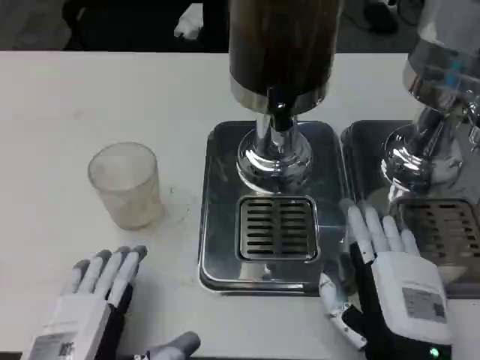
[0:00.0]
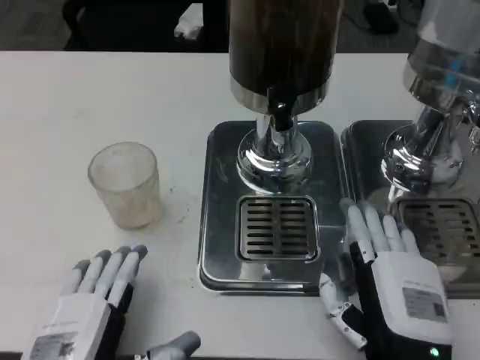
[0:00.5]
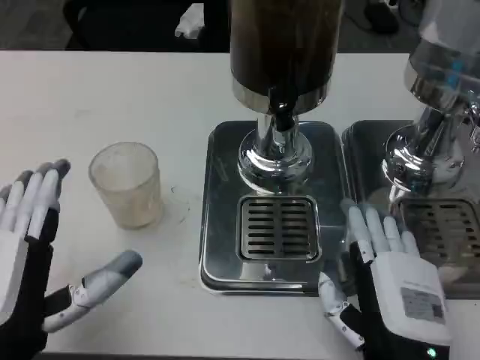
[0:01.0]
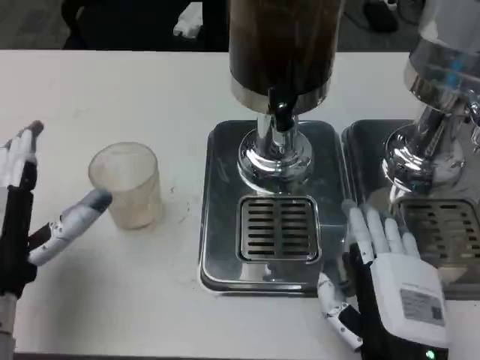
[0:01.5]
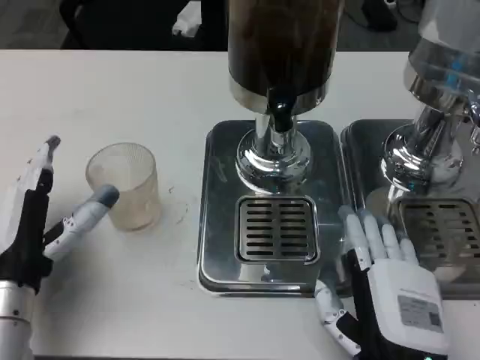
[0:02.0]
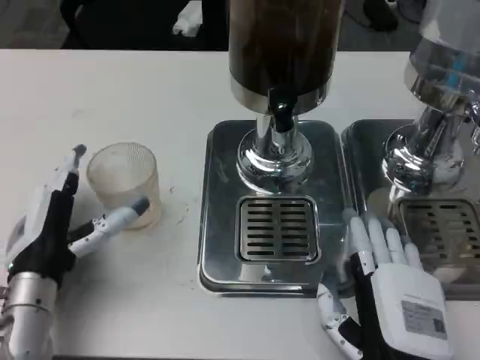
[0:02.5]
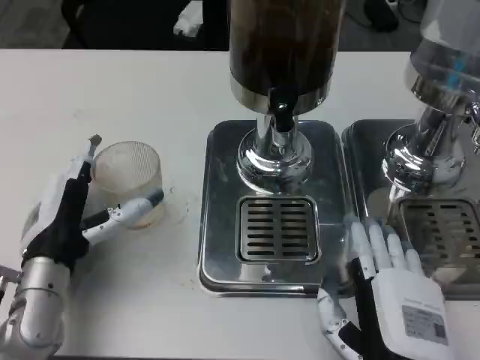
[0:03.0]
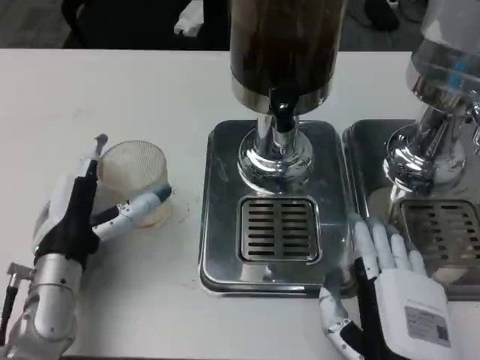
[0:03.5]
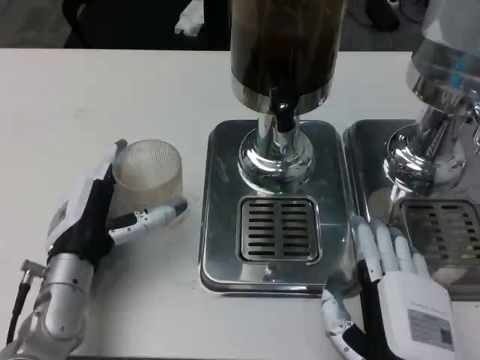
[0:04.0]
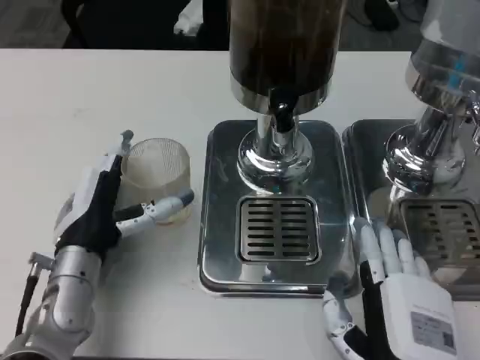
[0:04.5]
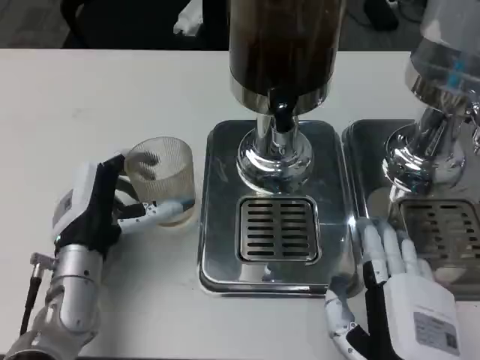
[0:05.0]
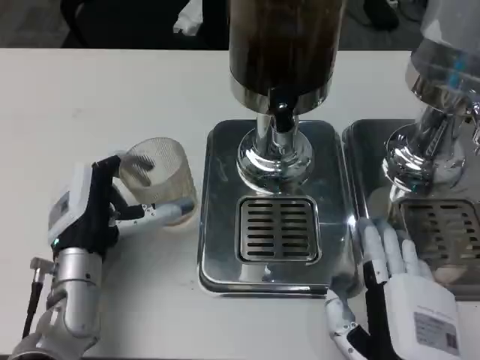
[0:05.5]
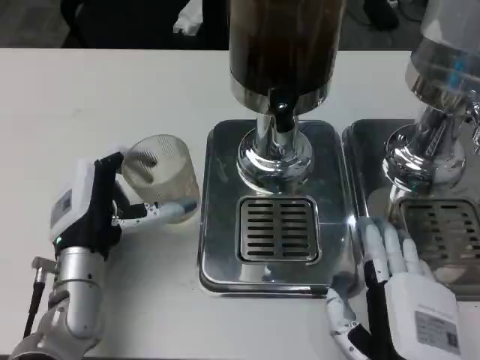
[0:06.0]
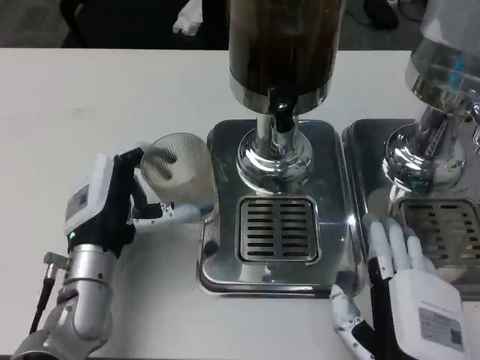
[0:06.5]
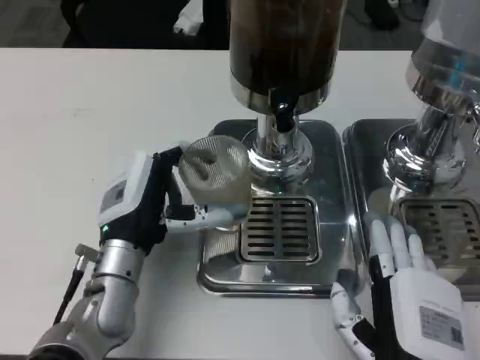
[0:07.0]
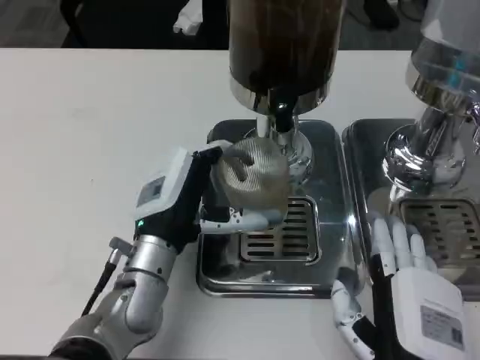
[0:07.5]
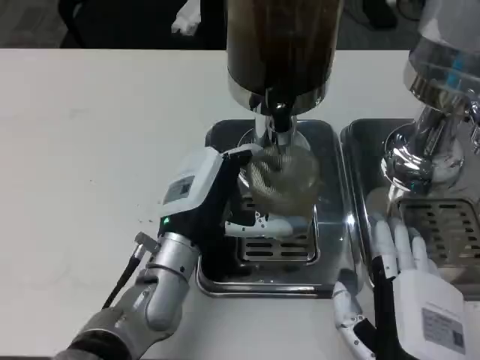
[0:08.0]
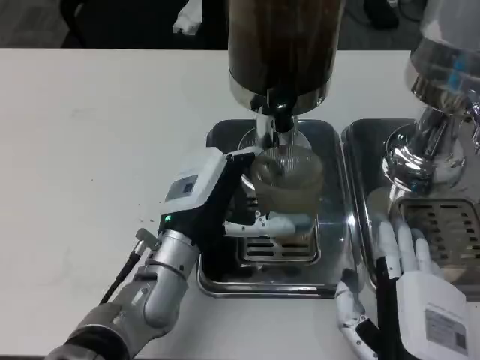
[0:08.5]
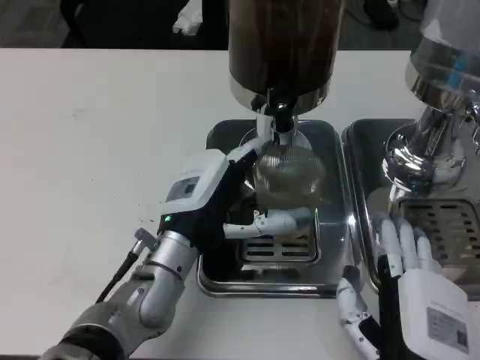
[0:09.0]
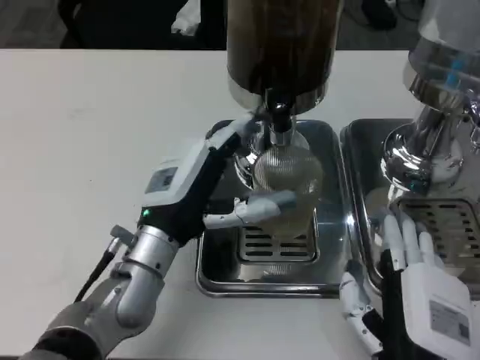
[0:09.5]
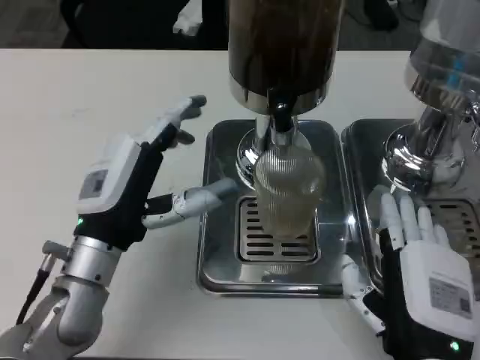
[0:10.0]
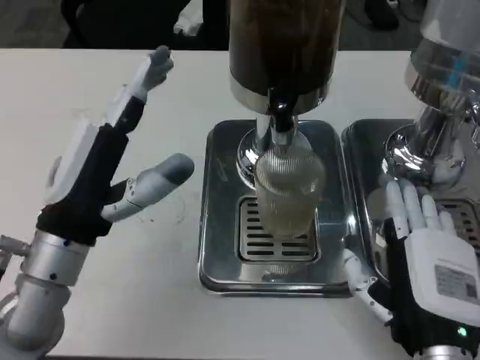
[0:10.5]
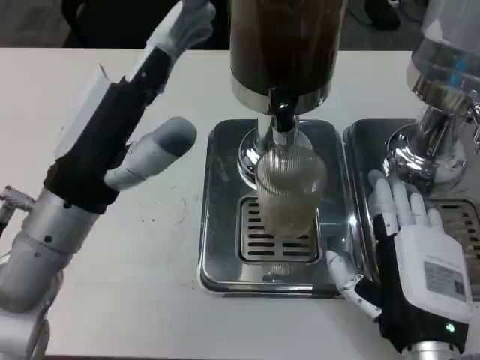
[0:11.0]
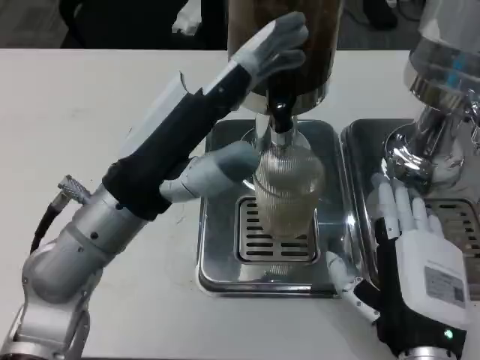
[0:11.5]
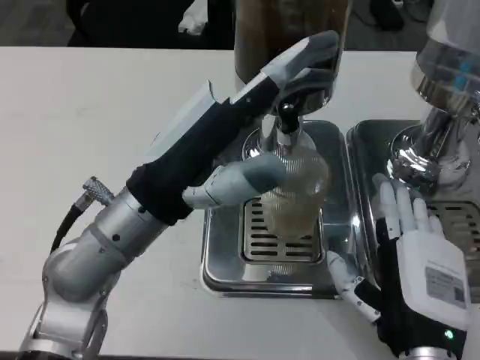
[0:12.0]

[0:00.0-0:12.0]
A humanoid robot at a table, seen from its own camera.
Task of the whole recording: Grasp the cup under the faucet to collect the drink, then remove the cup.
0.0 to 2.0 s: The left hand goes some 15 cm forward and to the left.
2.0 to 4.0 s: The left hand shifts by about 5 cm.
4.0 to 6.0 s: The hands stay close to where they were, moving slightly.
6.0 to 8.0 s: The left hand travels to the right by some 10 cm.
8.0 to 10.0 s: The left hand moves to the left, some 10 cm.
10.0 to 12.0 s: The left hand heads upward, covering about 10 cm.

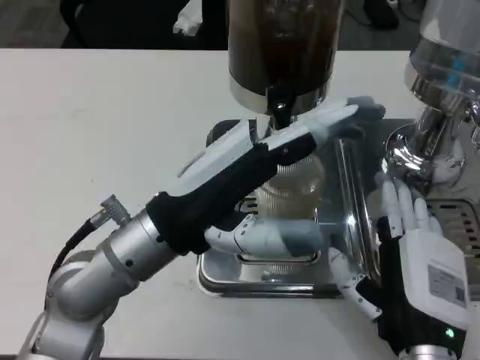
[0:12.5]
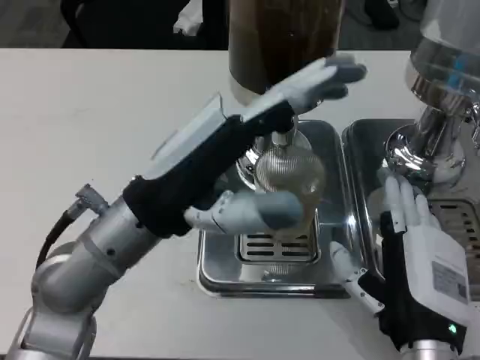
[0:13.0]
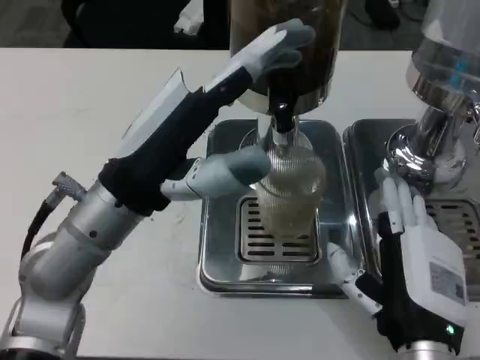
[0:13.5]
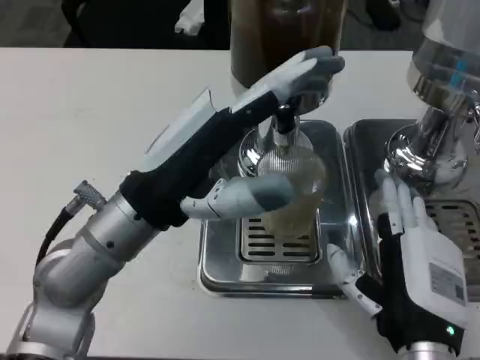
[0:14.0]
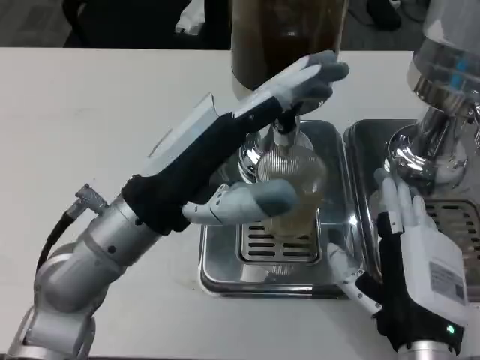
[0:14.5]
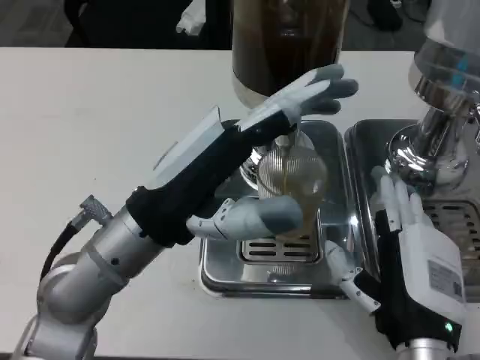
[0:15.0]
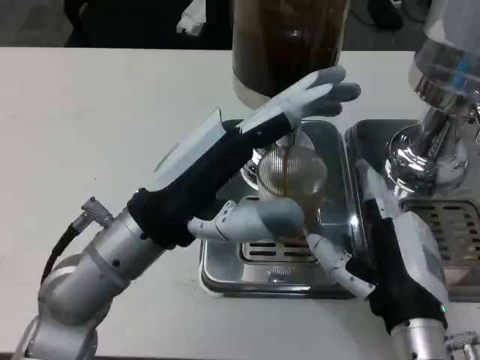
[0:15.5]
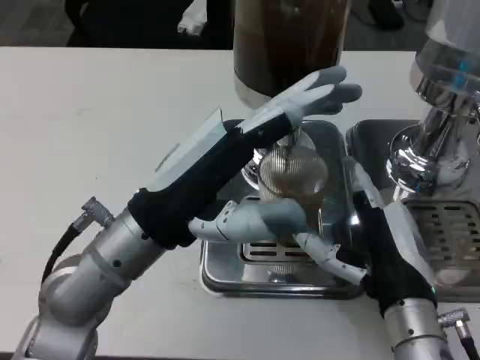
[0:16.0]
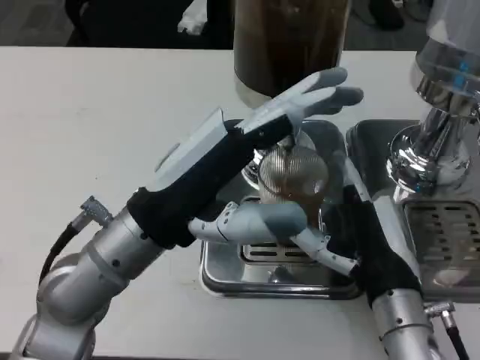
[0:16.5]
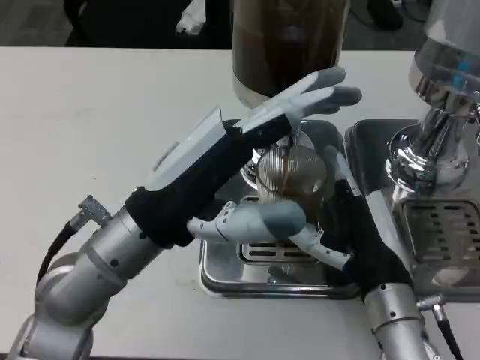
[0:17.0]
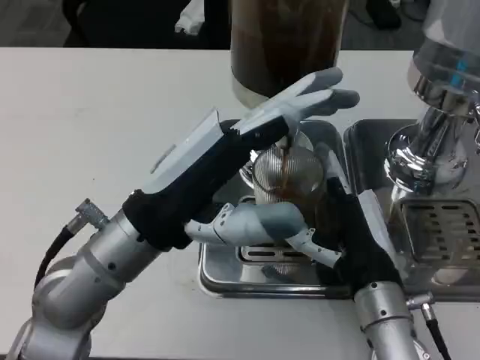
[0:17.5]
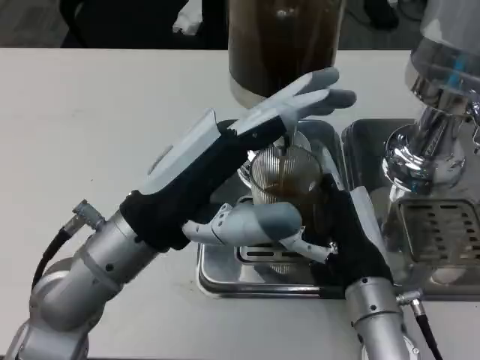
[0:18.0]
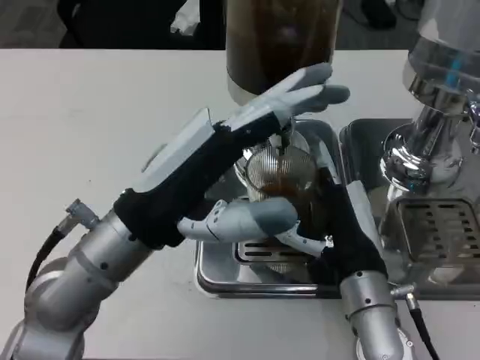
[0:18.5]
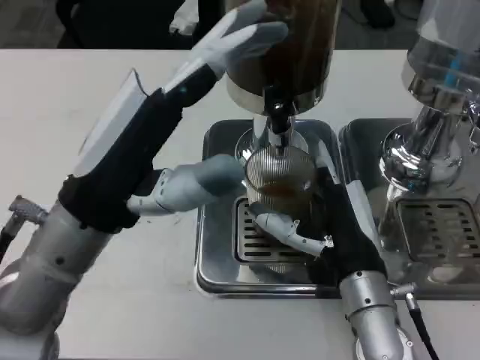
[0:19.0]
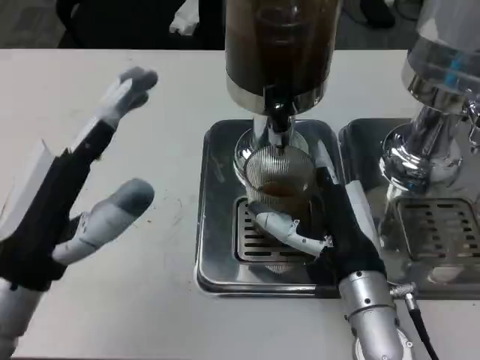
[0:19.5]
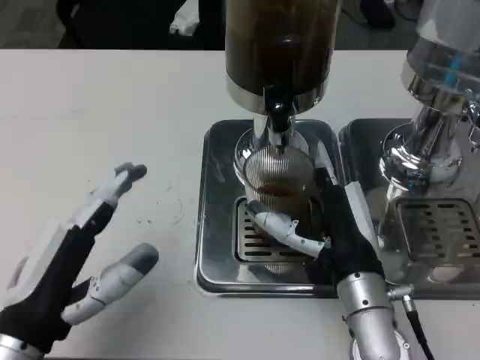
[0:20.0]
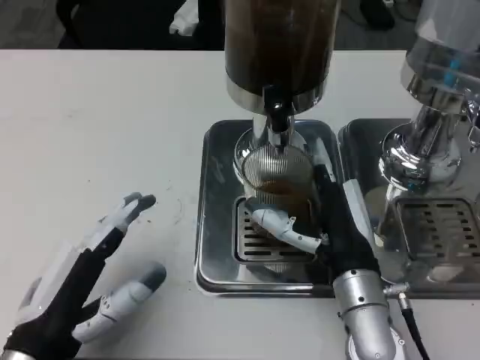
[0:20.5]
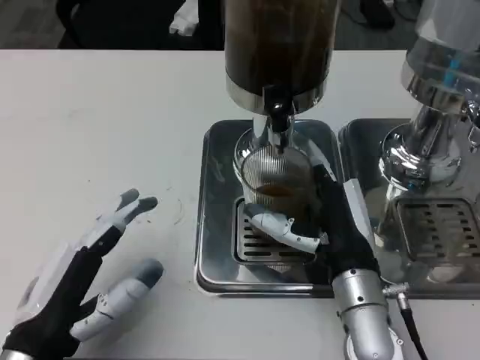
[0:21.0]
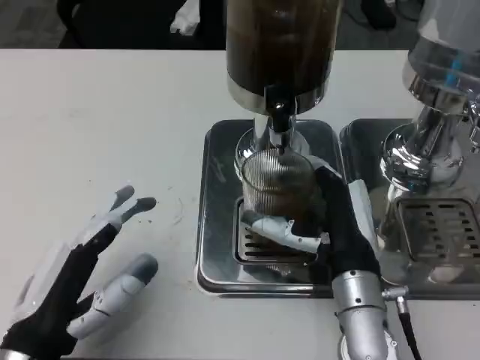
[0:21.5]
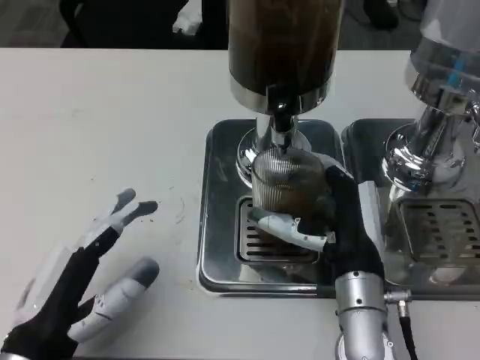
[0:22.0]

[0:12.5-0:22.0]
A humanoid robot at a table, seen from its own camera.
Task of the whole recording: Grasp the cup under the faucet to collect the drink, then remove the cup.
14.5 to 16.5 s: The right hand is displaced forward by some 5 cm.
18.0 to 20.0 s: The left hand is displaced to the left, backward and downward by some 15 cm.

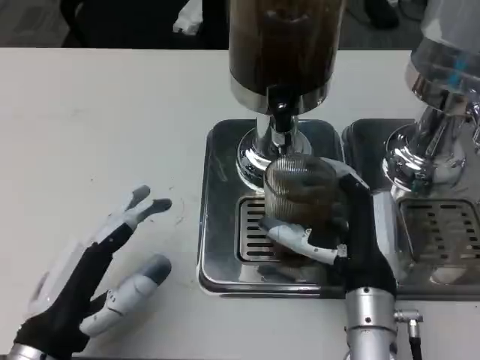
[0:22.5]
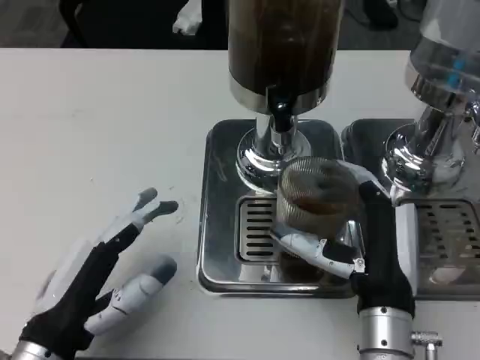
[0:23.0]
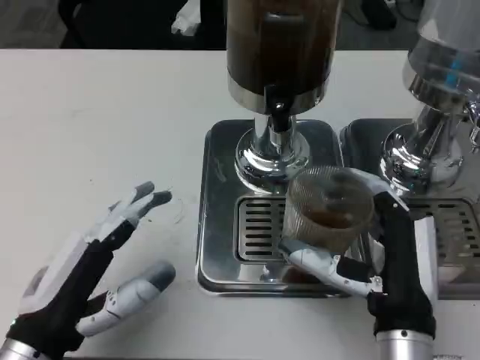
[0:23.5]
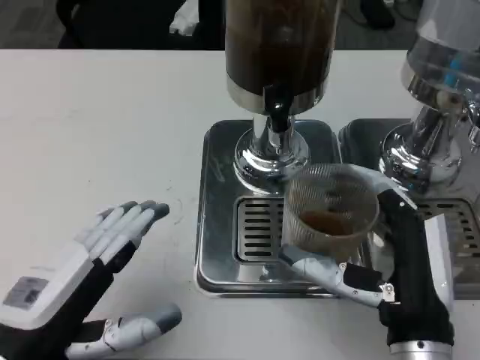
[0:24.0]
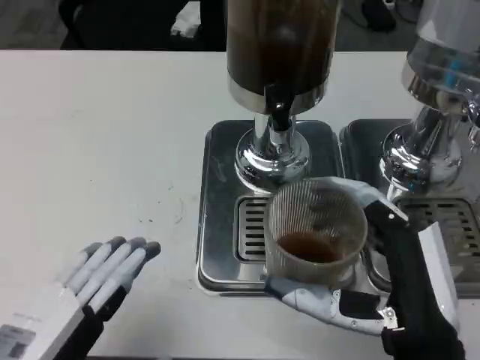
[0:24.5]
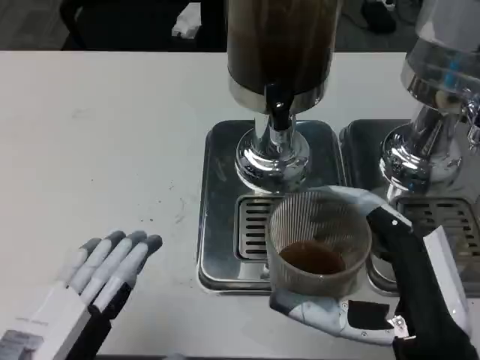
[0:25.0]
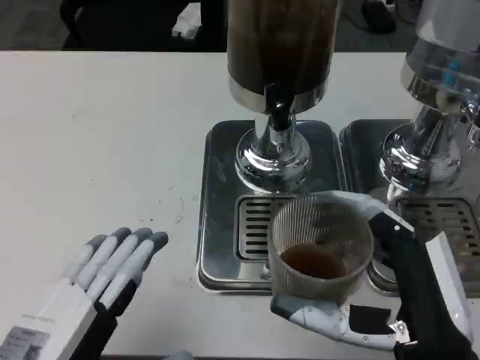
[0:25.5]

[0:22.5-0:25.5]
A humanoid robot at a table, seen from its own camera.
Task of the whole recording: Grasp the cup under the faucet to collect the drink, then remove the cup.
22.5 to 24.0 s: The right hand shifts some 5 cm backward.
24.0 to 25.5 s: The left hand changes place by some 5 cm.

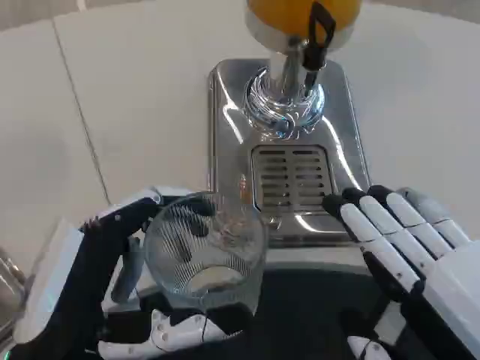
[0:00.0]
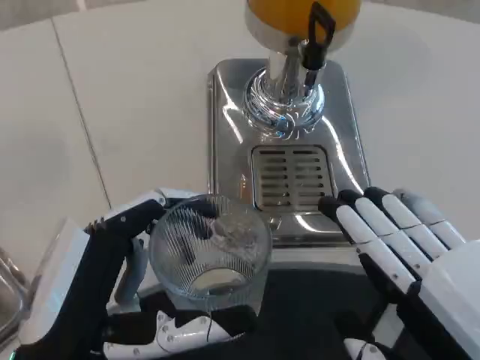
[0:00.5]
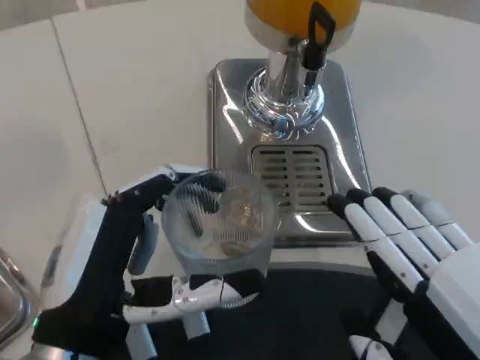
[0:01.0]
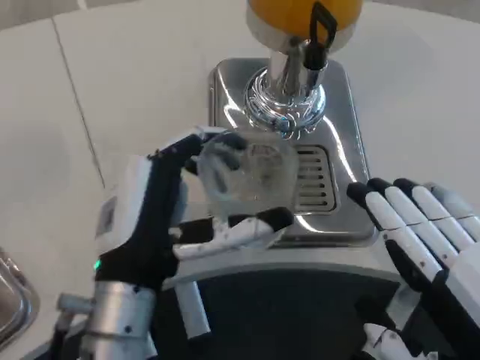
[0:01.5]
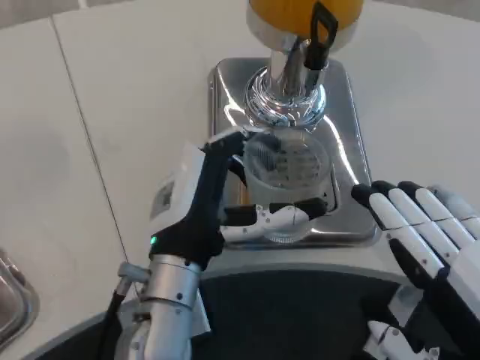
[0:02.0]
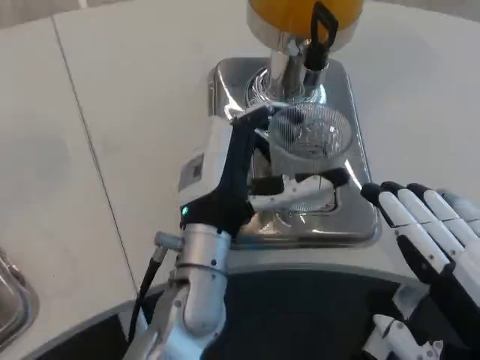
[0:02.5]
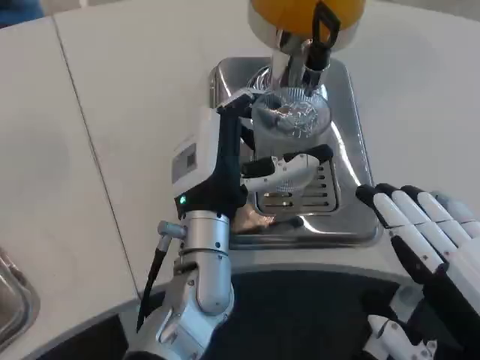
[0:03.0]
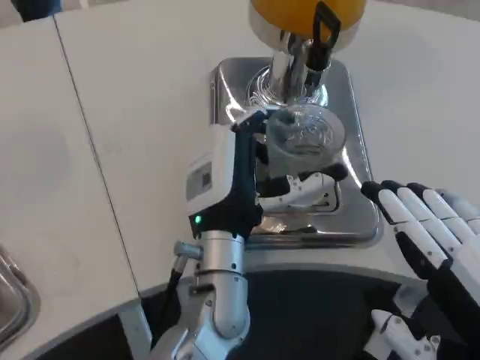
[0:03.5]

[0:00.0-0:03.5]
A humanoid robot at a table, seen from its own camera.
Task of the whole recording: Grasp the cup under the faucet to collect the drink, then remove the cup.
0.0 to 2.0 s: The left hand heads forward and to the right, covering approximately 15 cm.
2.0 to 3.5 s: The left hand moves to the right, approximately 5 cm.
